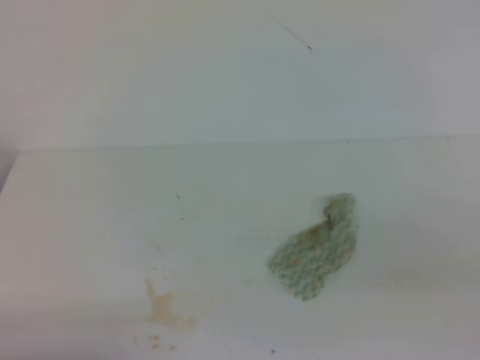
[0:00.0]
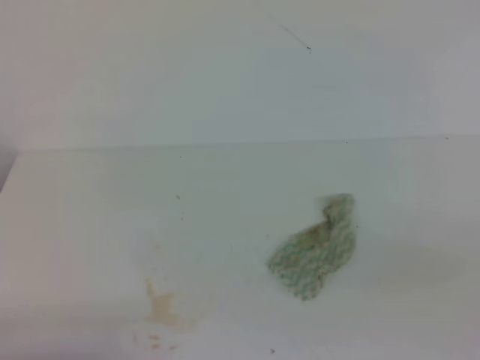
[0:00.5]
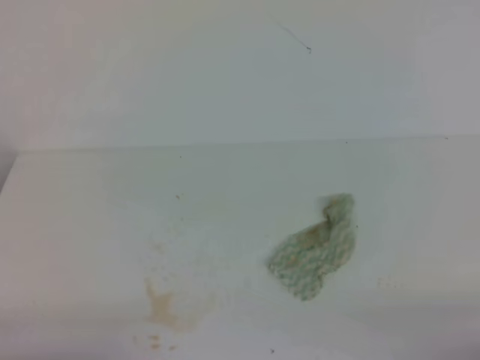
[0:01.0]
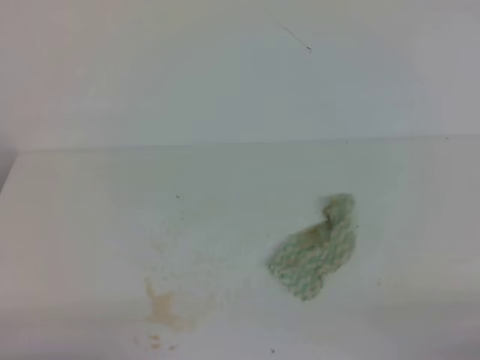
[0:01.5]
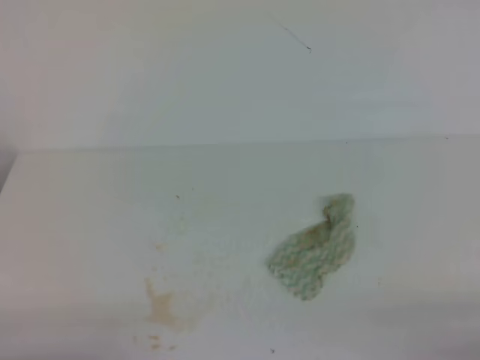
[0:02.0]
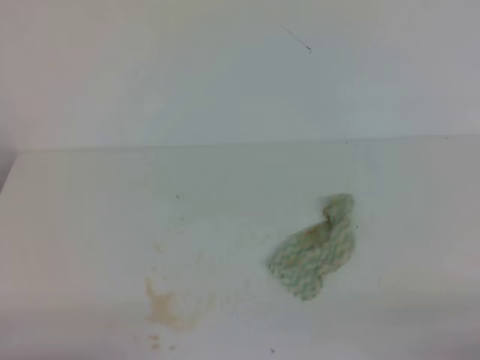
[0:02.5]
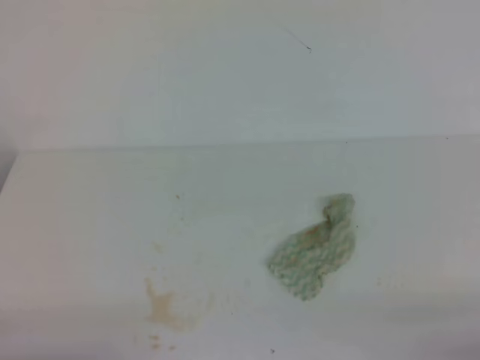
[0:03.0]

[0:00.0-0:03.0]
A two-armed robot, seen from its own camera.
0:01.5 to 0:03.0: The two grippers keep their place.

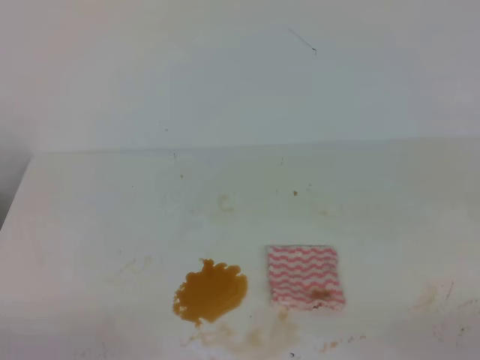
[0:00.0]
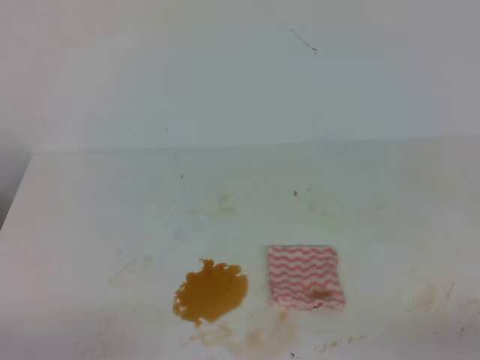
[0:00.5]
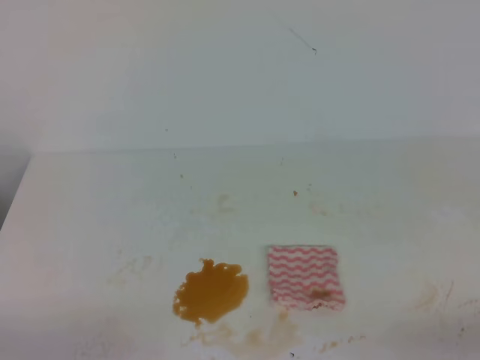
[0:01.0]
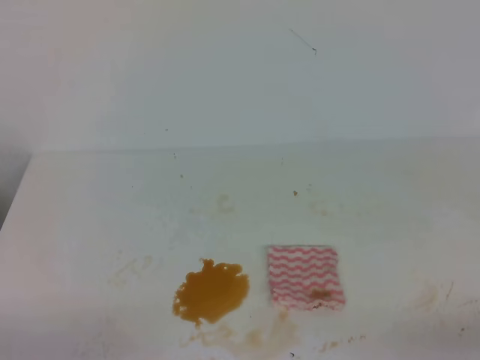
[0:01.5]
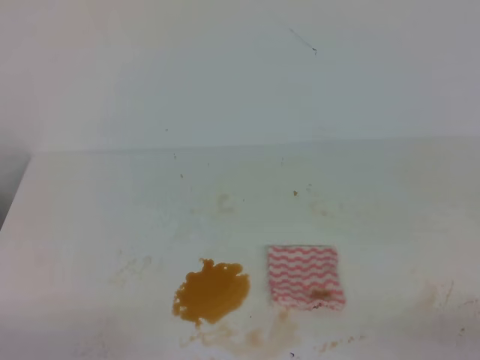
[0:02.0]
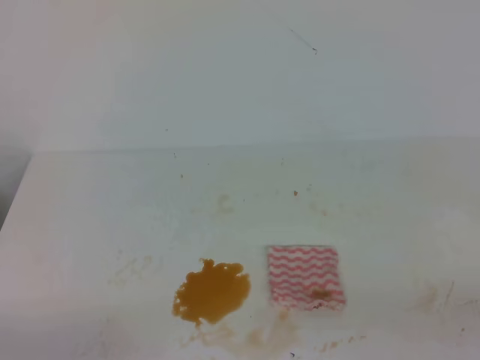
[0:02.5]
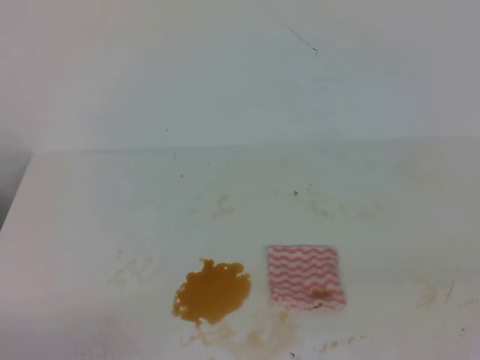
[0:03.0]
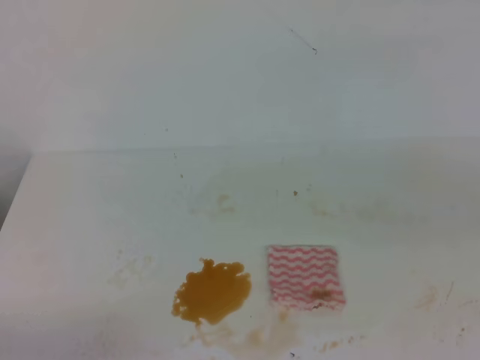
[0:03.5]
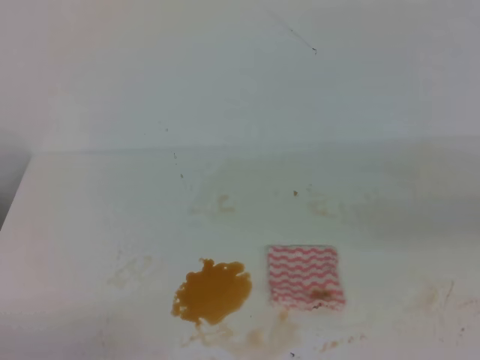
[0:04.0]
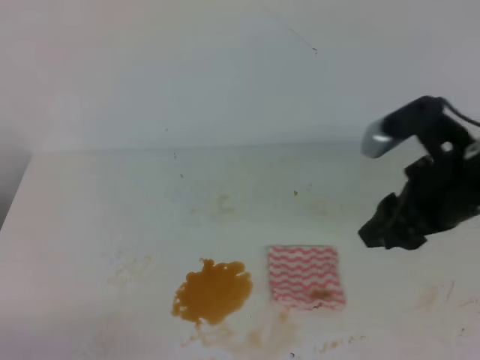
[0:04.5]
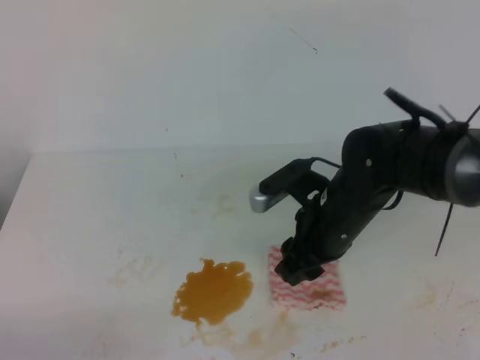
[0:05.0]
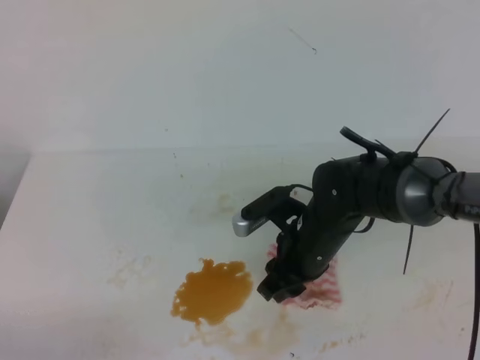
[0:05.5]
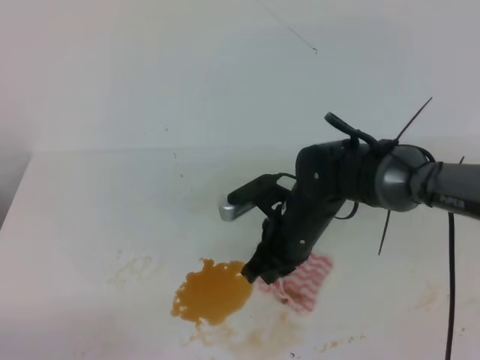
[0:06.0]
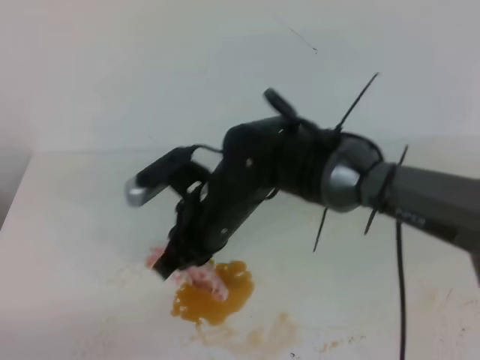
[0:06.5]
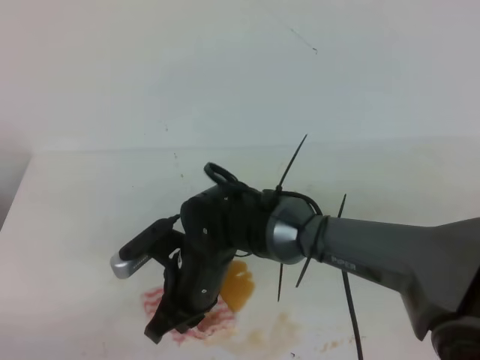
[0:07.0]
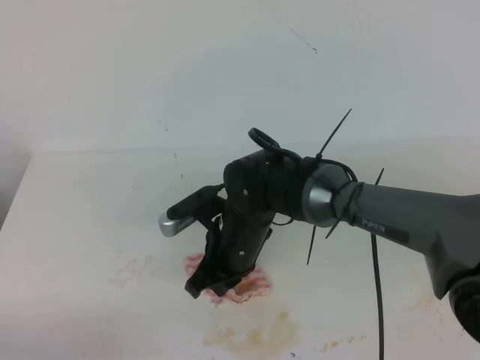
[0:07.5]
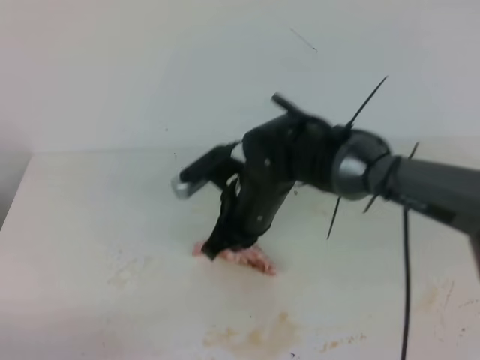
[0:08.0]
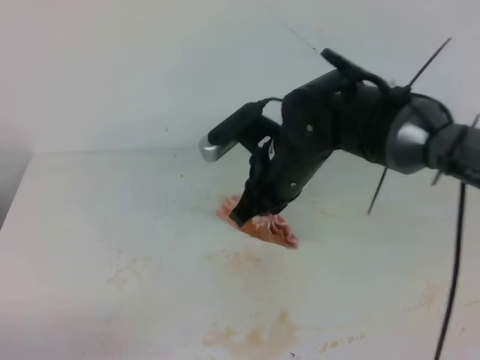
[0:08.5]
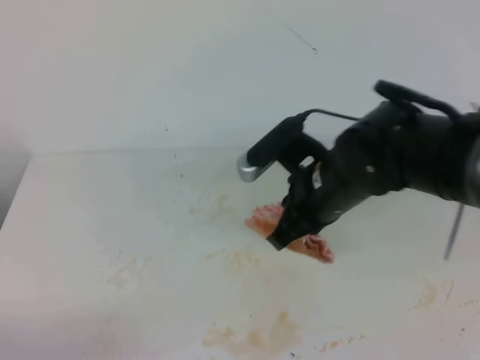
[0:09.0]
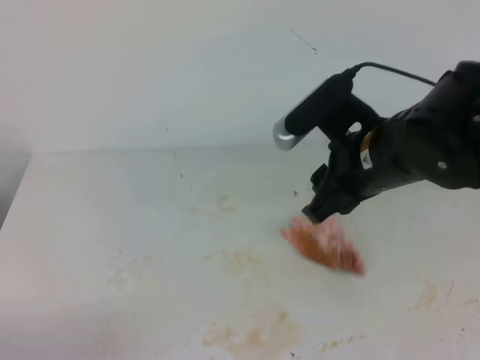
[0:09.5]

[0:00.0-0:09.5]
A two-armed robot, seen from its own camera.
0:04.0 to 0:05.5: The right gripper moves to the left, downward and forward, about 35 cm, and opens.
0:05.5 to 0:07.5: The right gripper is displaced to the left by approximately 10 cm, and closes.
0:07.5 to 0:09.5: The right gripper is displaced upward and to the right by about 20 cm, and opens its fingers.

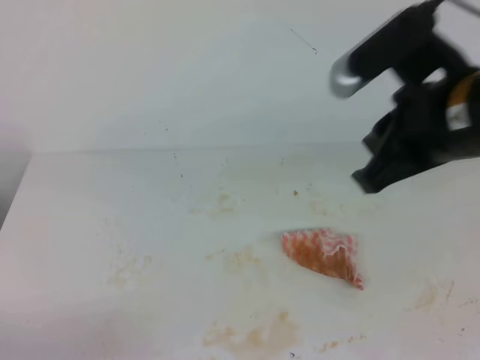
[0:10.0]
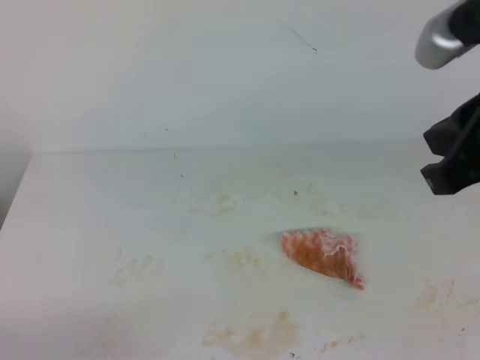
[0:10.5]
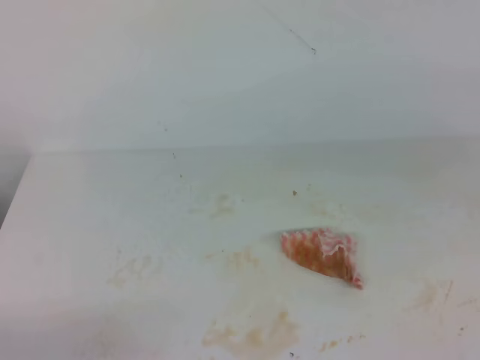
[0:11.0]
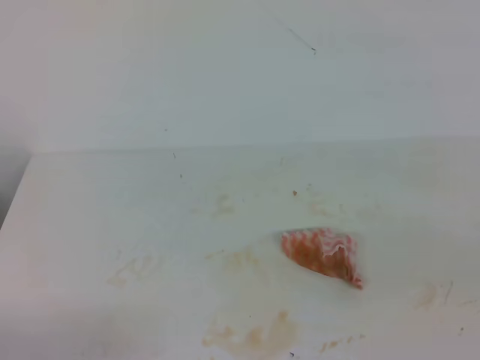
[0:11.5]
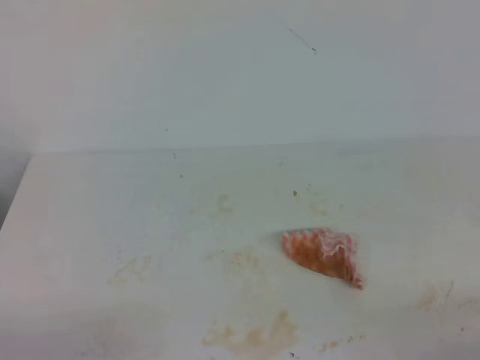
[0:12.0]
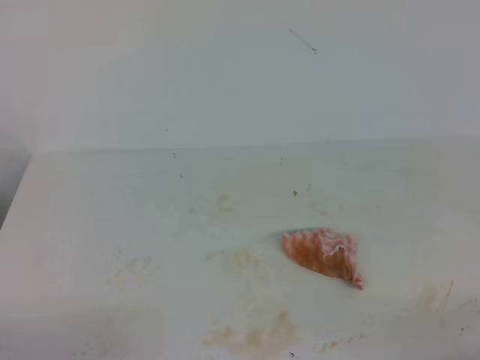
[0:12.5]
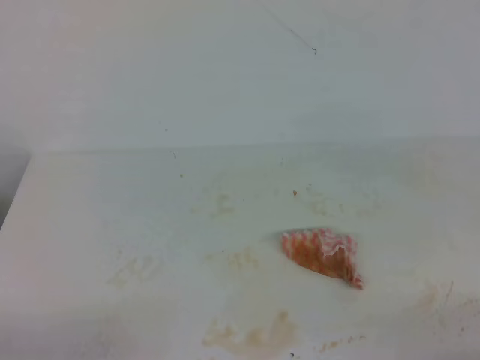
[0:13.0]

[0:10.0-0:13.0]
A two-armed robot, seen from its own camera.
0:10.0 to 0:11.5: The right gripper moves backward and to the right, some 25 cm, and closes its fingers.
